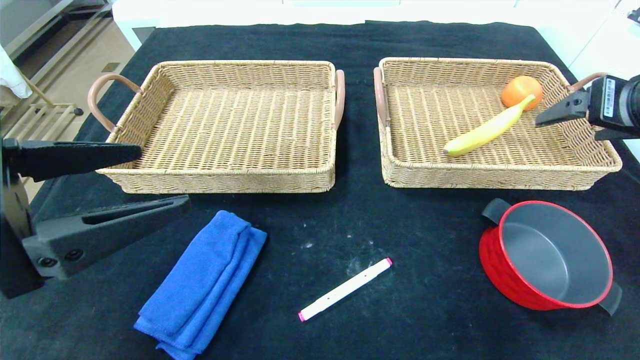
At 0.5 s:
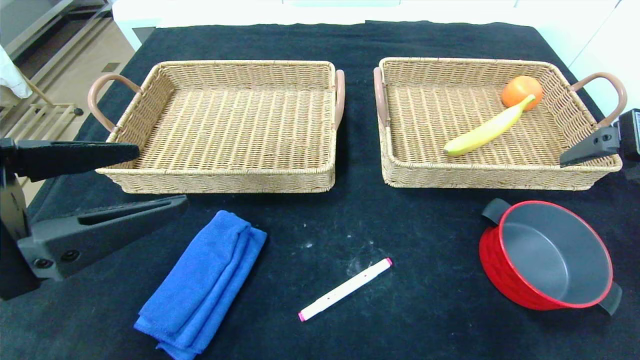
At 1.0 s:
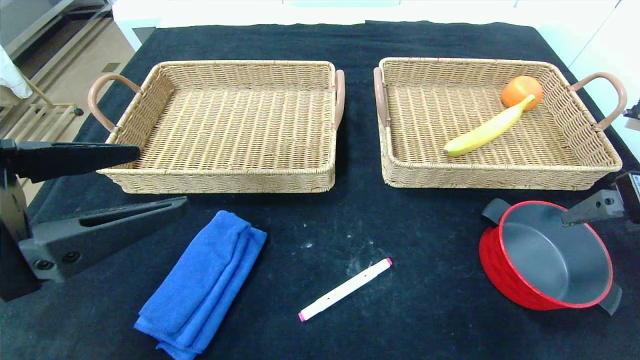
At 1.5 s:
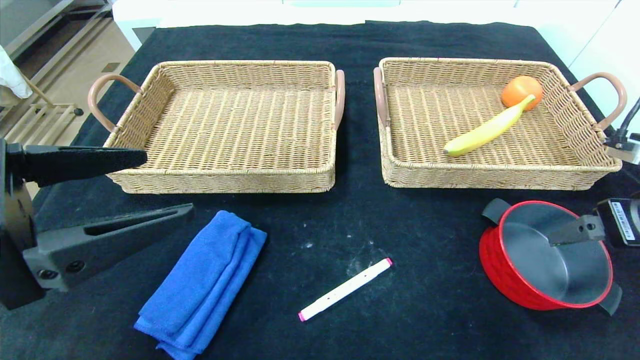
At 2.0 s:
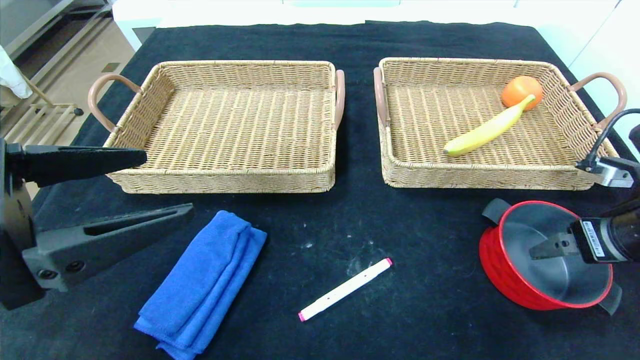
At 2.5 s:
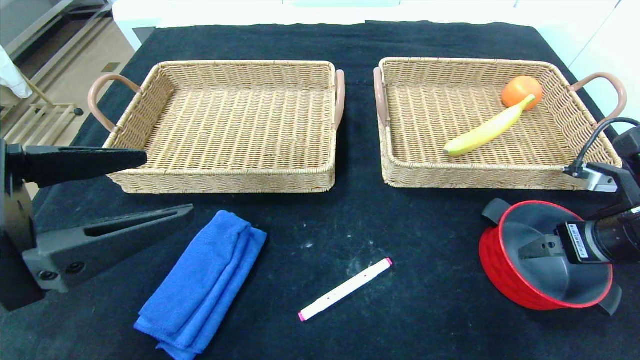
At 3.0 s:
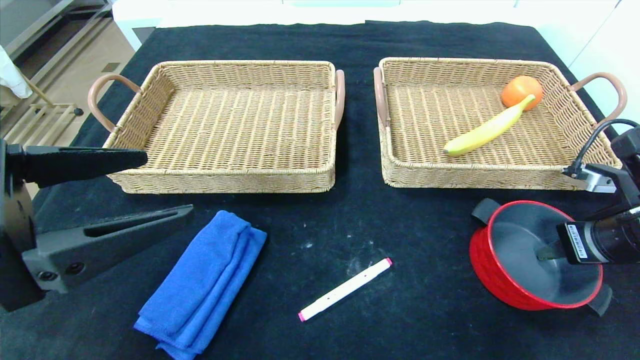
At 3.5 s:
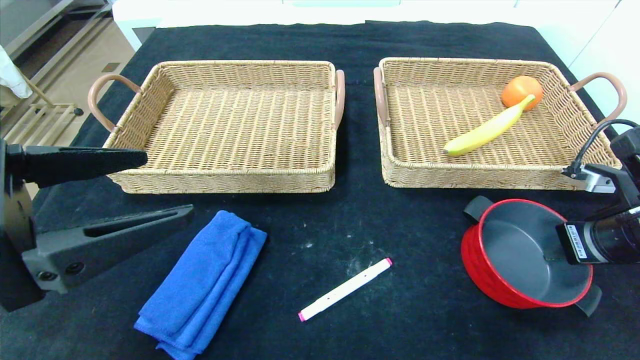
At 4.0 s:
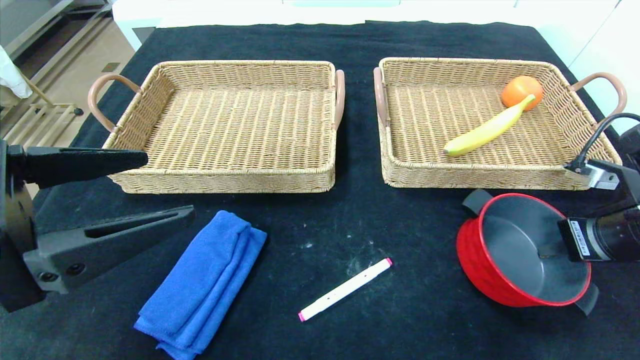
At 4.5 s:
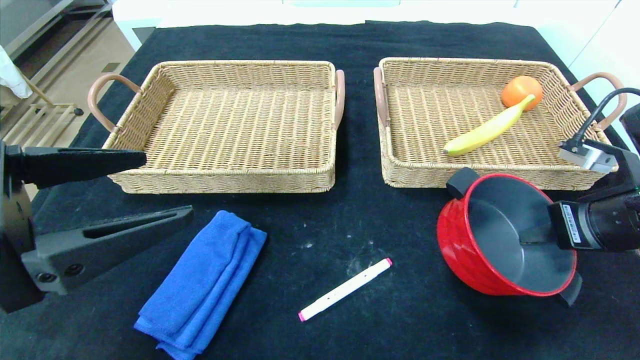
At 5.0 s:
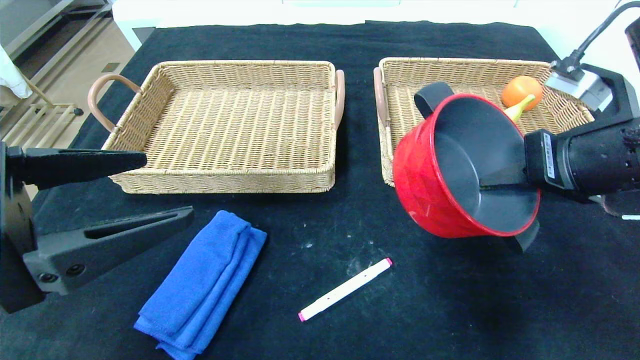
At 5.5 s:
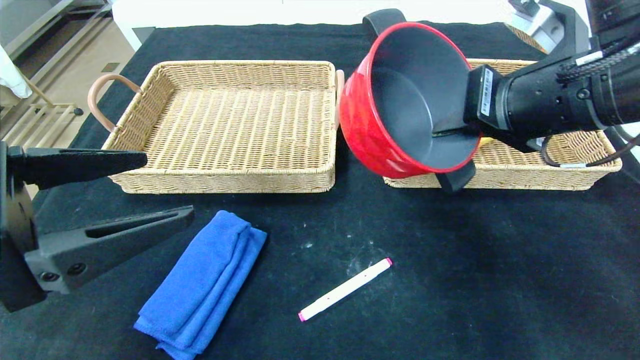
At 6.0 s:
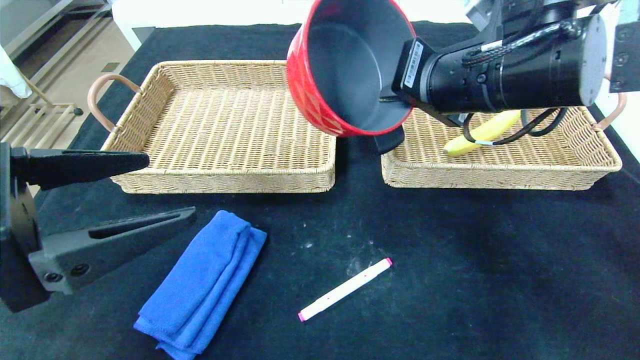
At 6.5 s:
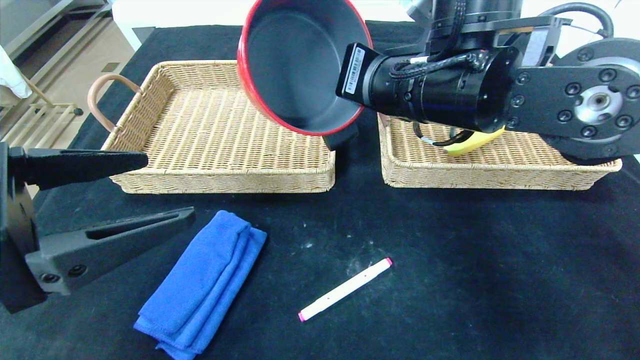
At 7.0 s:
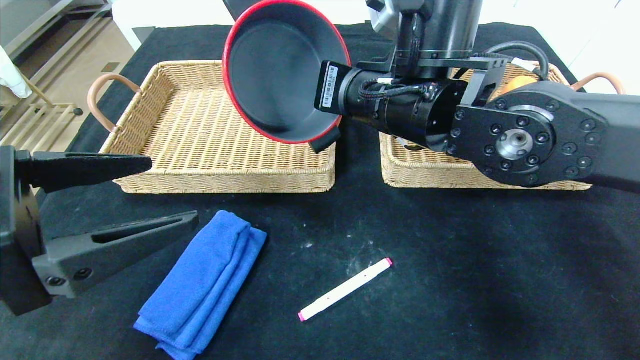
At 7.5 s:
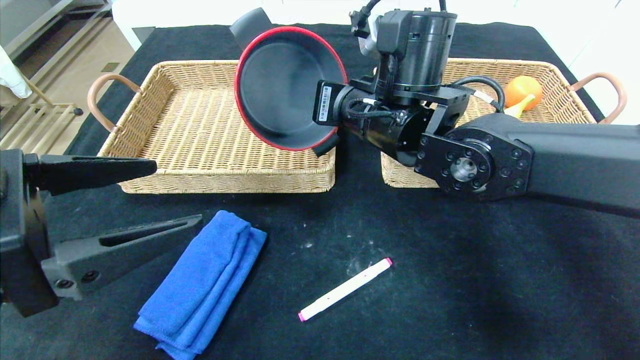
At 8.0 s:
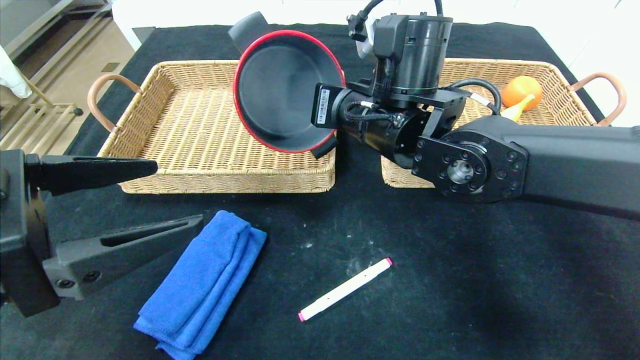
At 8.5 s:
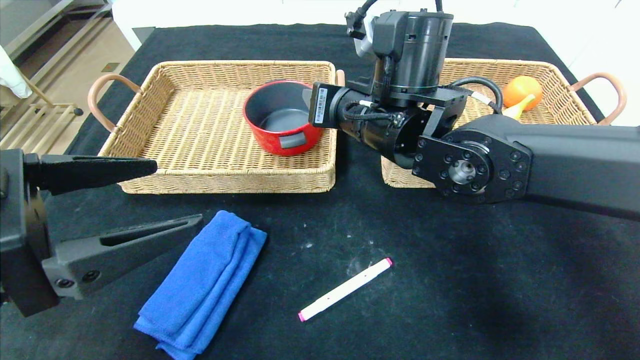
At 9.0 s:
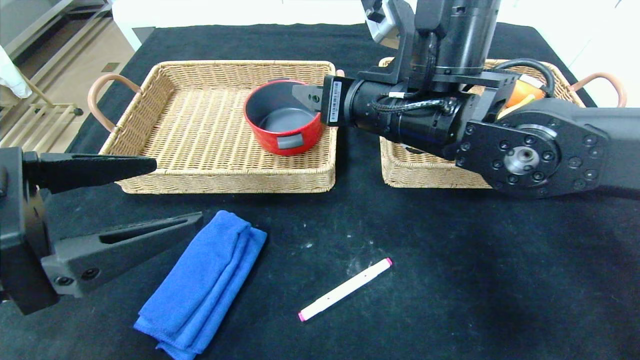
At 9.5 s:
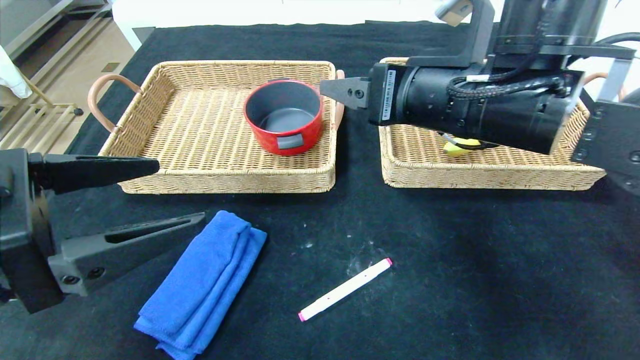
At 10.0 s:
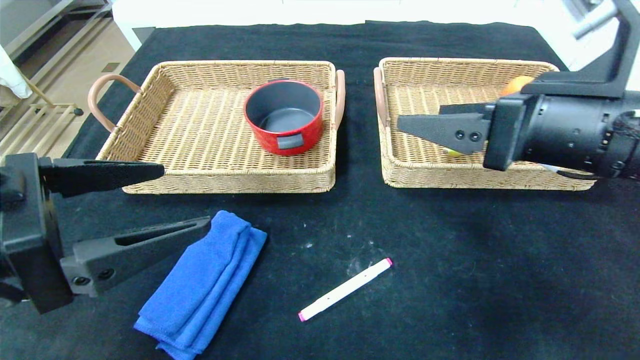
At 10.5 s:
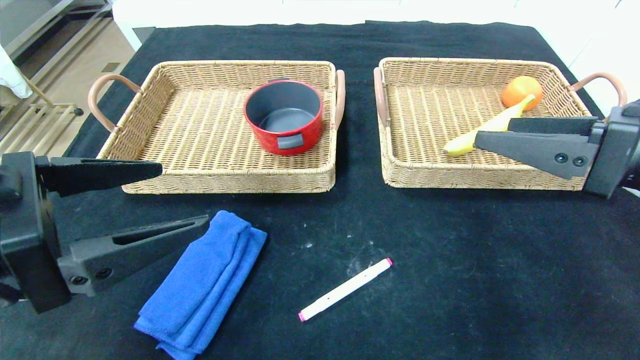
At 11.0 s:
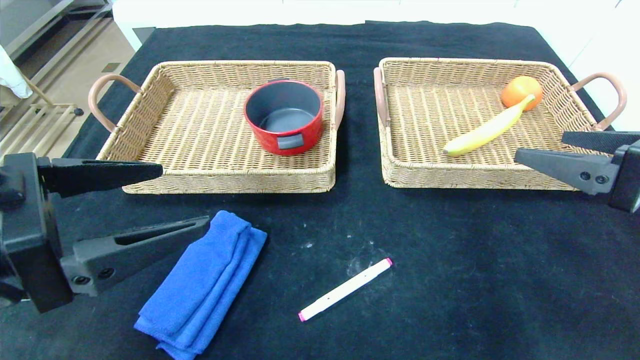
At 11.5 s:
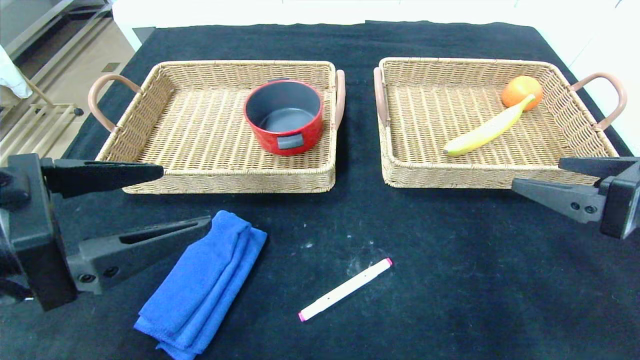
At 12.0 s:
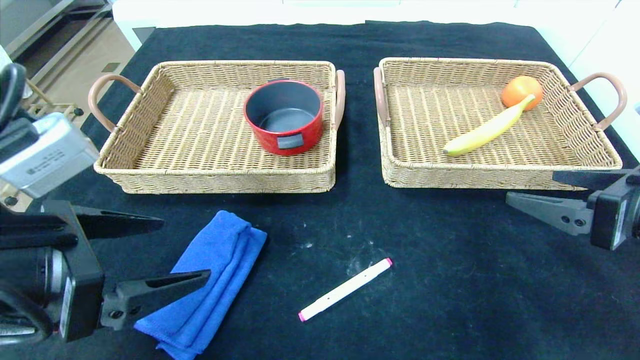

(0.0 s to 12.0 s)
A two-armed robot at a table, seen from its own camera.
0.0 s - 2.0 s: The right gripper shifts about 10 cm downward.
2.0 s - 4.0 s: The right gripper closes its fingers.
4.0 s - 6.0 s: The right gripper moves to the left and upward, about 25 cm.
6.0 s - 8.0 s: The right gripper travels to the left and downward by approximately 10 cm.
8.0 s - 10.0 s: The right gripper shifts about 20 cm to the right and backward, and opens its fingers.
10.0 s - 12.0 s: The right gripper travels to the right and downward by approximately 10 cm.

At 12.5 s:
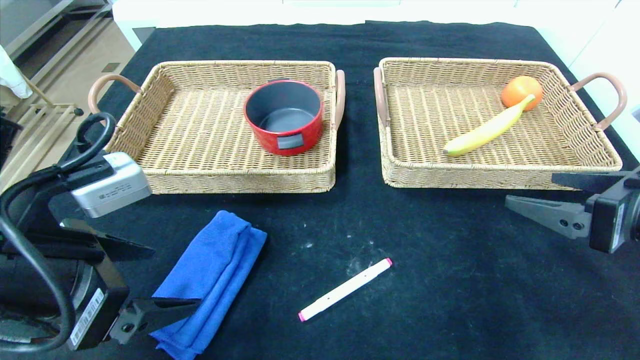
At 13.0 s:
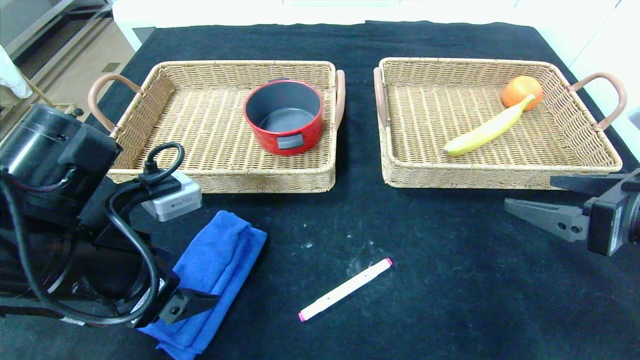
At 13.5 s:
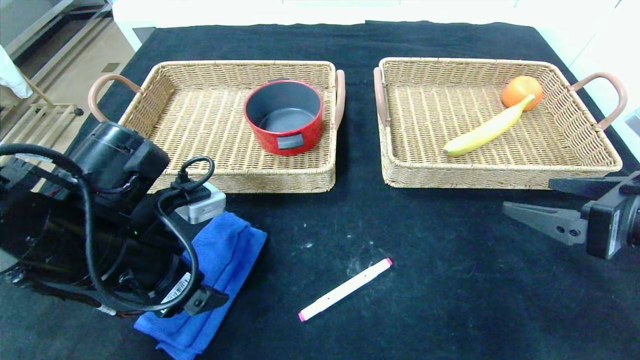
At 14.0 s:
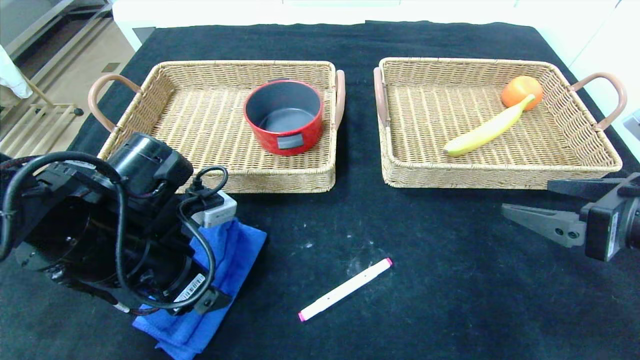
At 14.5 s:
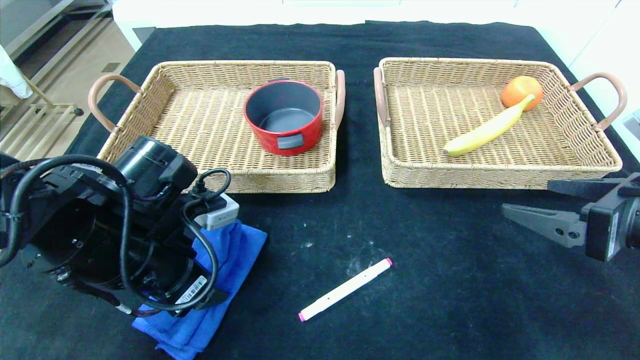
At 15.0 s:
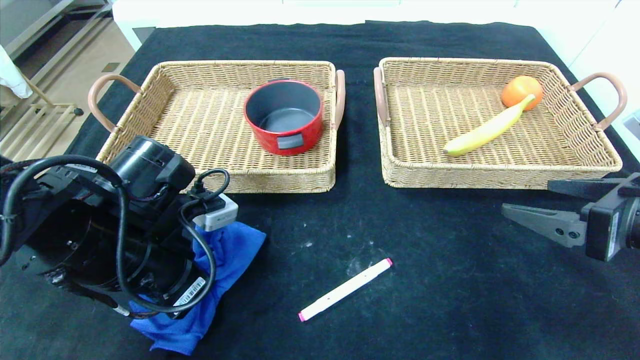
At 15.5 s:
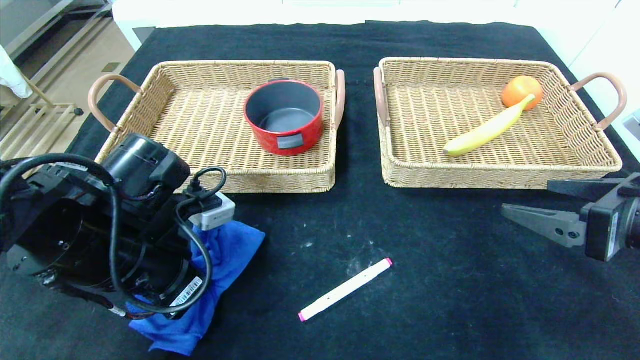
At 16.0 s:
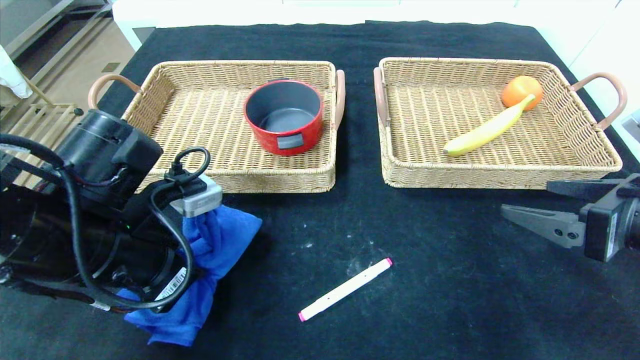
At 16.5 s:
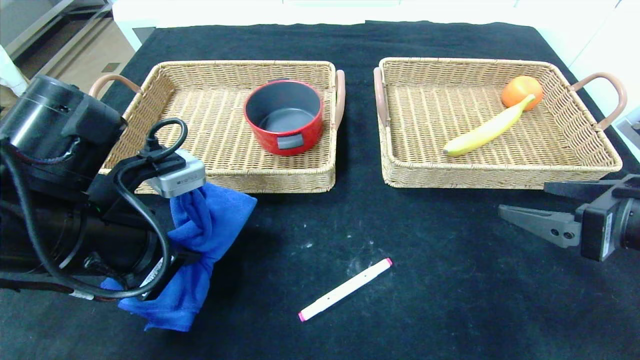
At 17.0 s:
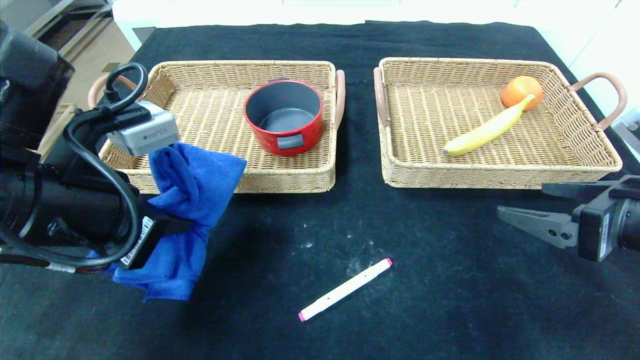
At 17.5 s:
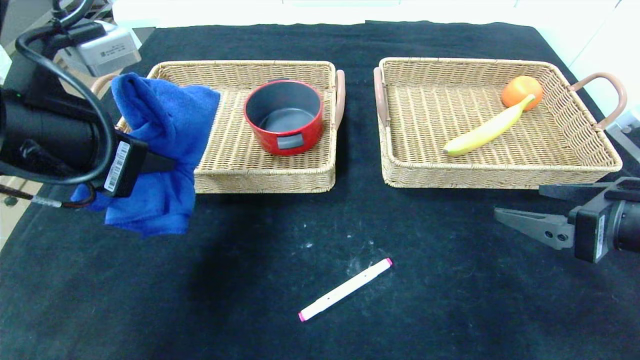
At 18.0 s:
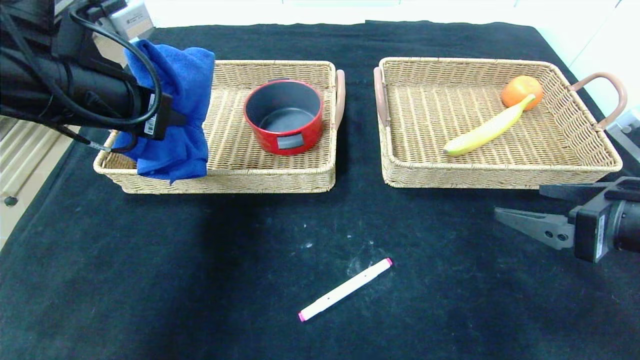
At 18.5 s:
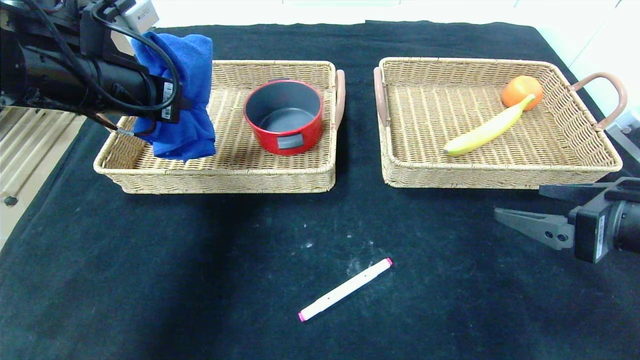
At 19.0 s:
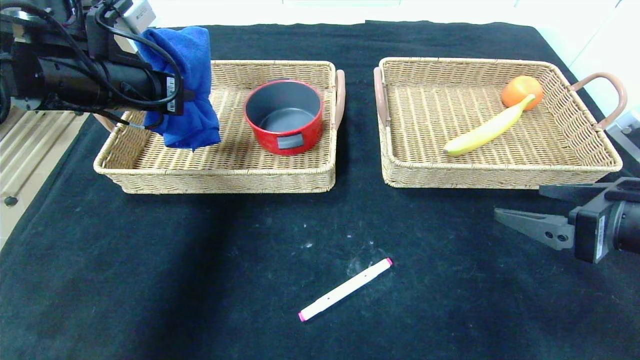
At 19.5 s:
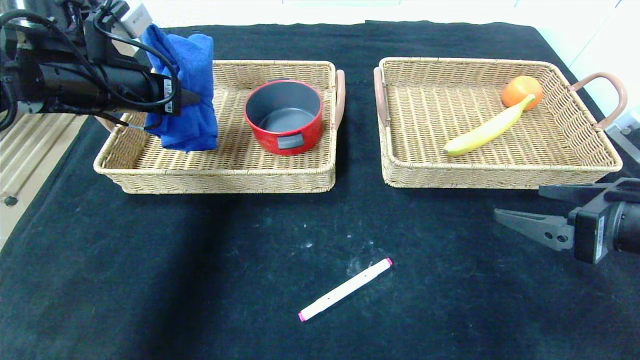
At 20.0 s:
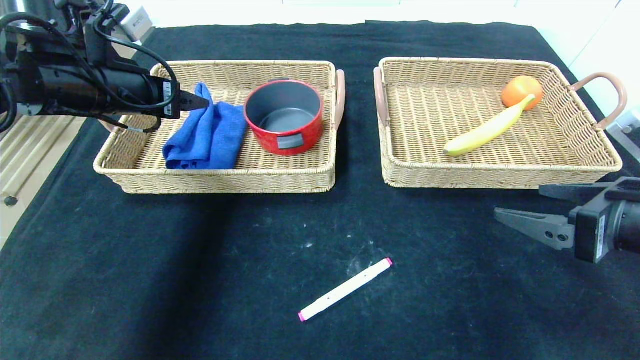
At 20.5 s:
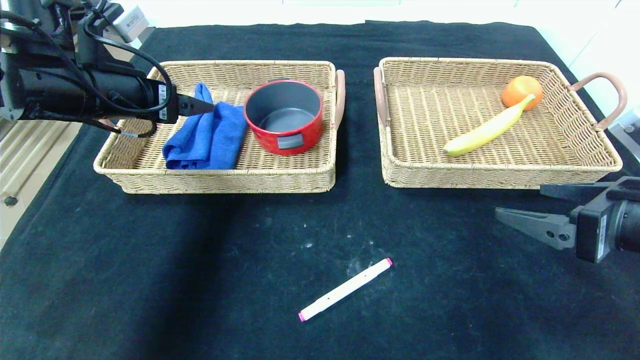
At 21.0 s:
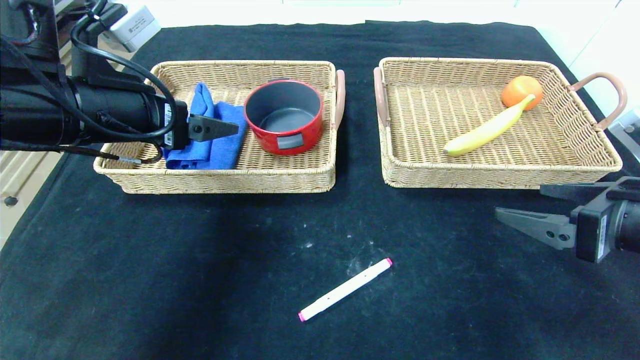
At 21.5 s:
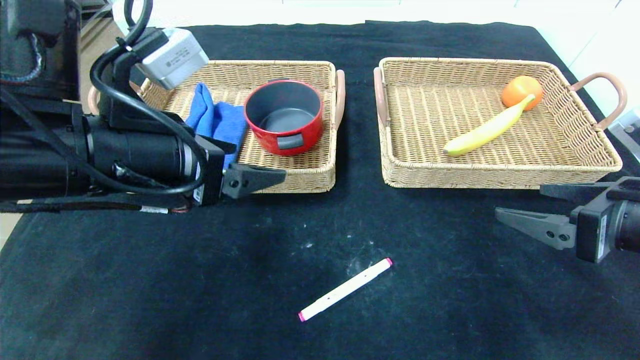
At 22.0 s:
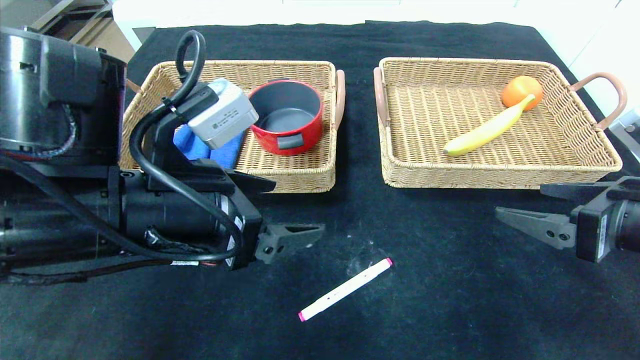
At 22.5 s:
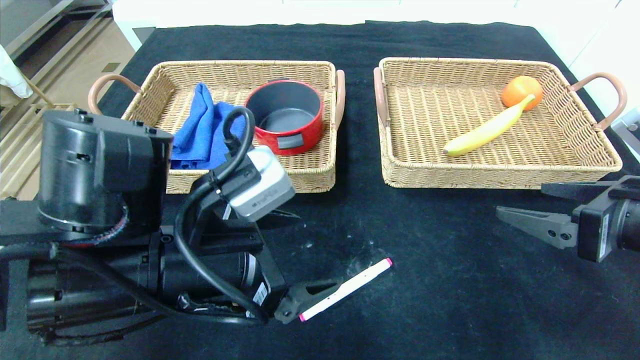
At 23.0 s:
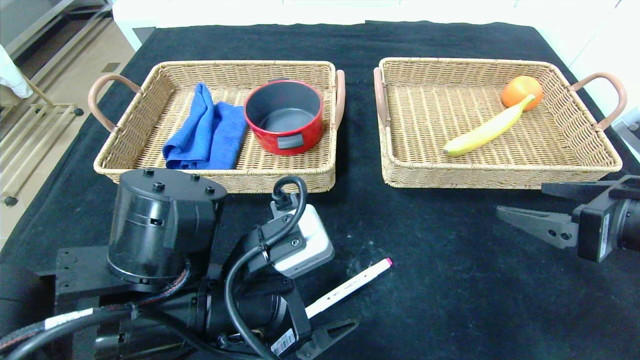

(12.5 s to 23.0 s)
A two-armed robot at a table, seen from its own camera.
Step, 12.5 s - 19.5 s: Grasp the blue towel and put it in the left basket.
12.5 s - 14.5 s: The left gripper travels forward and downward by about 10 cm.
14.5 s - 16.5 s: The left gripper changes place by approximately 5 cm, and closes.
16.5 s - 19.0 s: The left gripper goes about 15 cm forward and upward.
19.0 s - 21.0 s: The left gripper travels backward by some 5 cm, and opens up.
21.0 s - 23.0 s: The left gripper is displaced downward, to the right and backward by roughly 20 cm.
